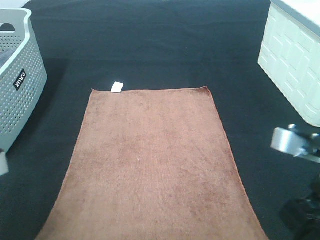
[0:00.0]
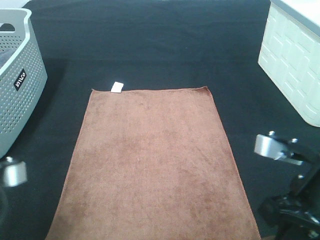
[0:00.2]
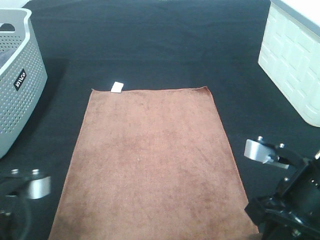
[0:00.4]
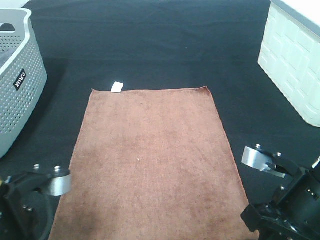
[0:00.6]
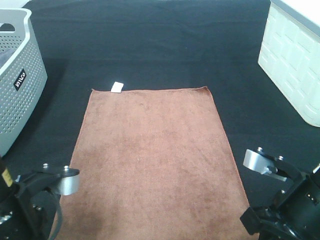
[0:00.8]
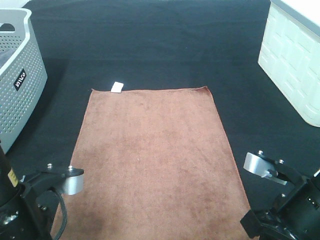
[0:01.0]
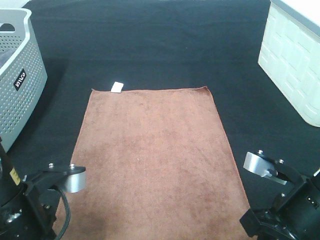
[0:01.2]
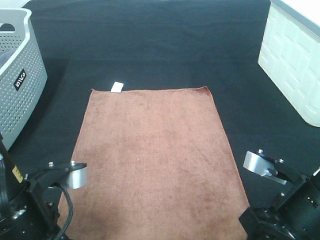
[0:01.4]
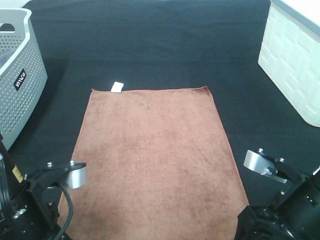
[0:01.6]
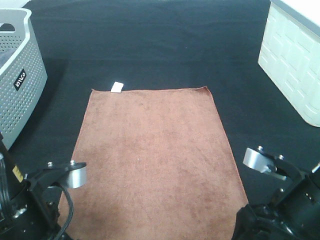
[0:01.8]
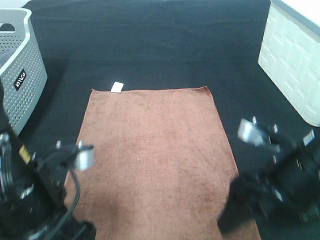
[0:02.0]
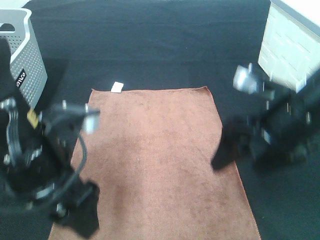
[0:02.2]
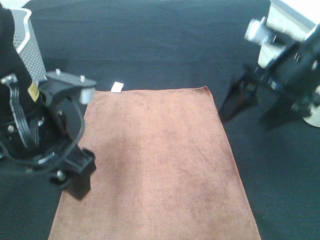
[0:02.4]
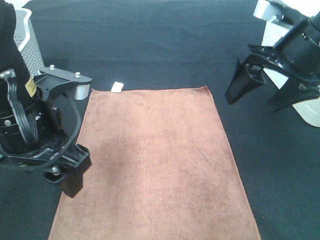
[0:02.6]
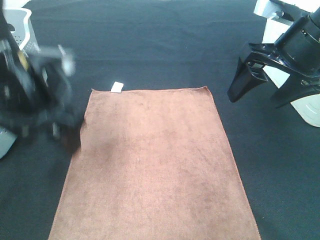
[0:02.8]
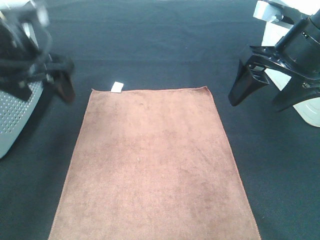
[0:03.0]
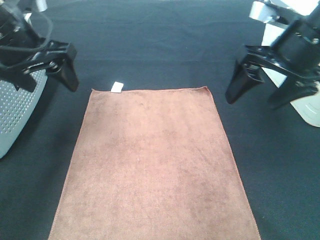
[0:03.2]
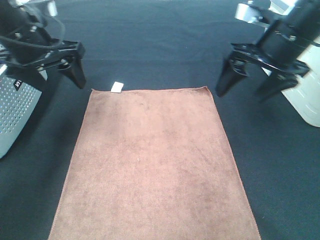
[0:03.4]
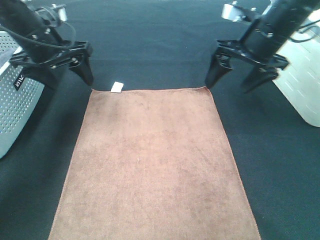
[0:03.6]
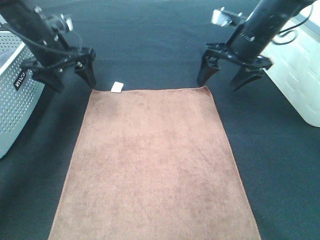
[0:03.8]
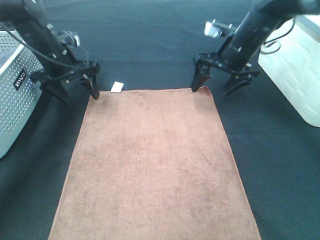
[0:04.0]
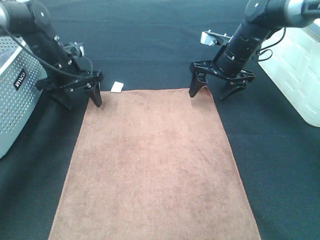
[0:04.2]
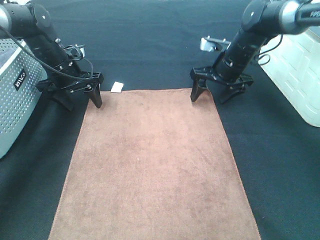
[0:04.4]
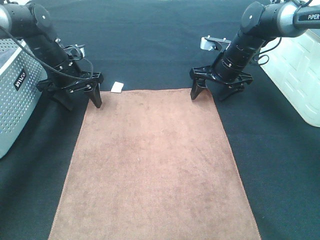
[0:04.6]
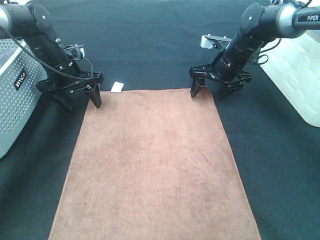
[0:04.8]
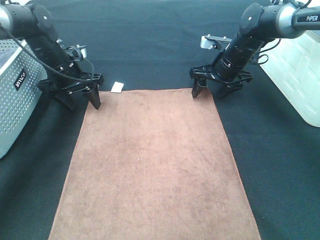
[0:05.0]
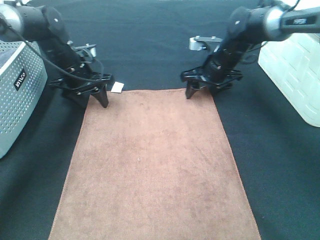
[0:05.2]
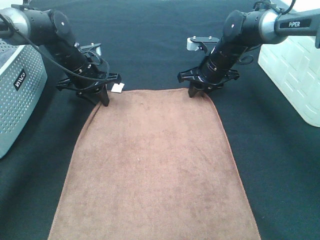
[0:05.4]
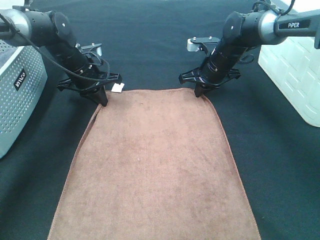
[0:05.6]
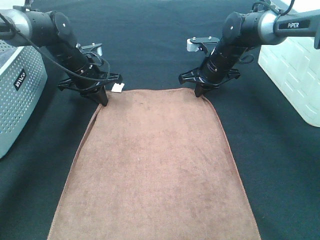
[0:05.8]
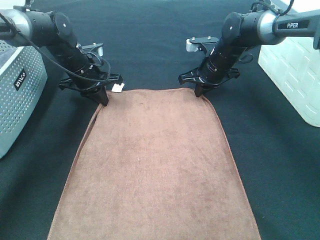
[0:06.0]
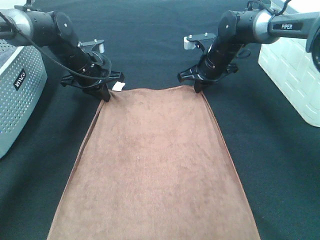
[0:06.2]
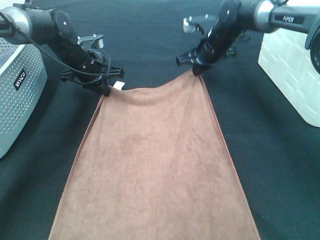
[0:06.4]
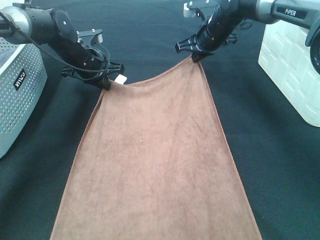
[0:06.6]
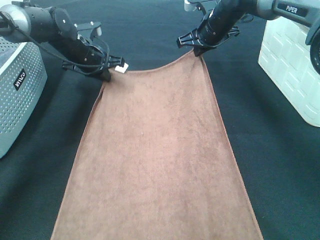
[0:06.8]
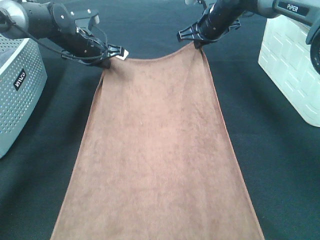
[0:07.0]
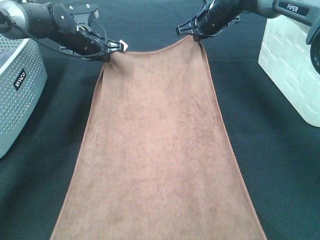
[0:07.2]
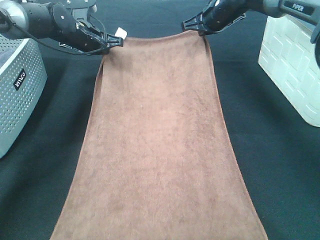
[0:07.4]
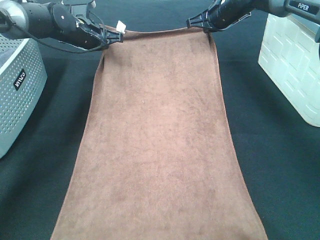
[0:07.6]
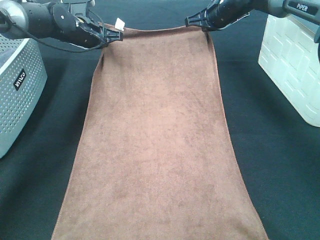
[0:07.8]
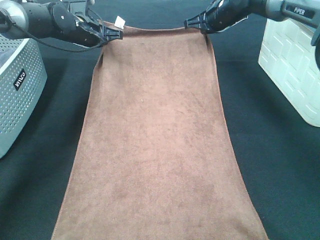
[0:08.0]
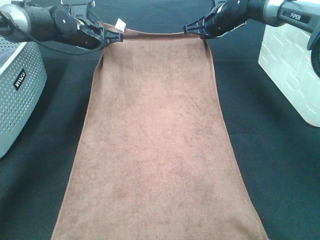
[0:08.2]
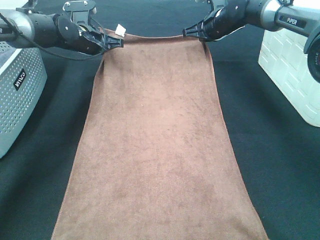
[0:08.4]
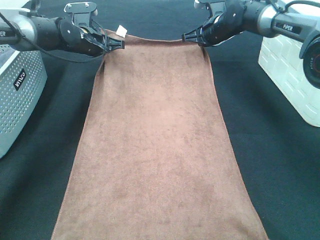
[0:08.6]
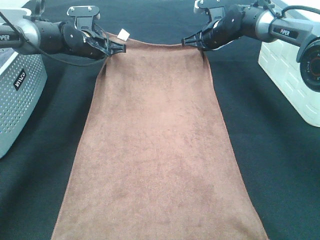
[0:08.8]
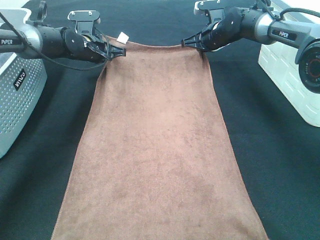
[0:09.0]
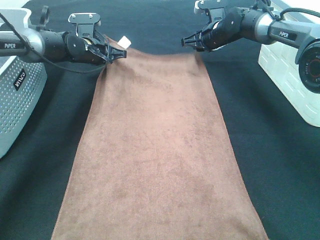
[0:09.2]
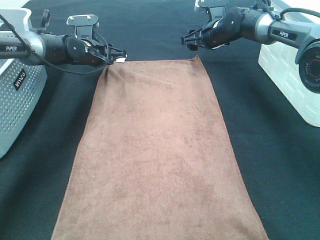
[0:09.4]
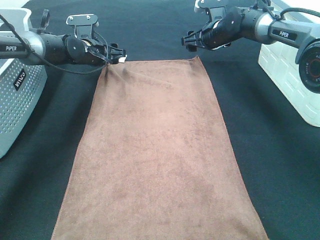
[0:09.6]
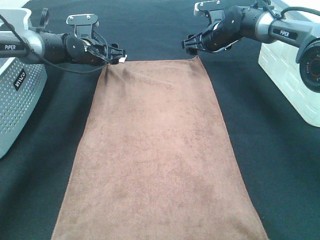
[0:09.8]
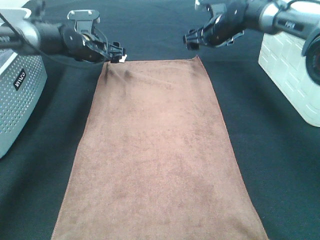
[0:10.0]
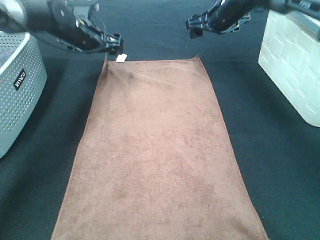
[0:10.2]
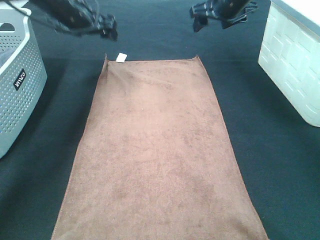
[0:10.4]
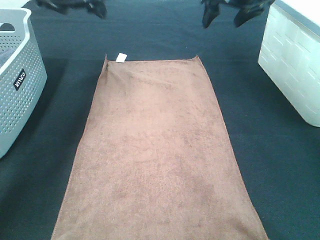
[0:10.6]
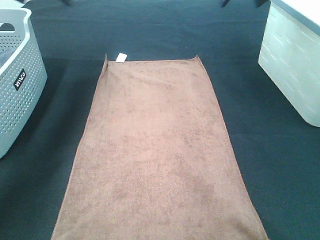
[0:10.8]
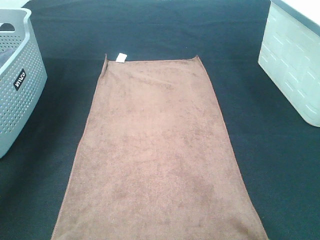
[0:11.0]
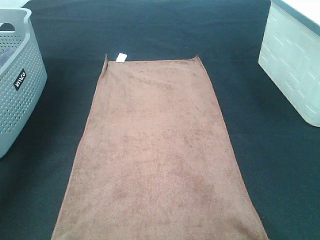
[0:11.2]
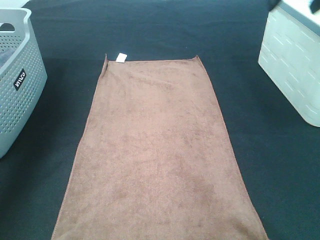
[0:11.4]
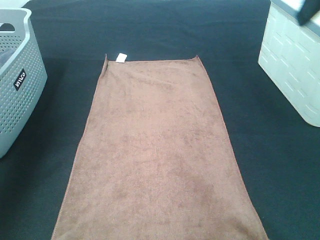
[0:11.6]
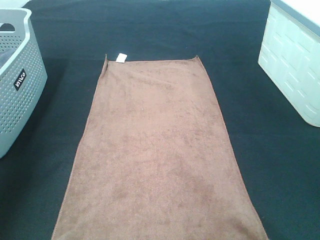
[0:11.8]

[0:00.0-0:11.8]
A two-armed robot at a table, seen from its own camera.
Task of the whole recording: Remove the towel and place it.
Step, 0:00.0 to 0:03.4: Left hand:adjust the brown towel.
Step, 0:00.0 to 0:03.4: Right hand:adjust the brown towel.
0:00.0 to 0:01.4: The right gripper is displaced downward by roughly 5 cm, and opens, while the left gripper moves to the right, roughly 5 cm, and opens.
0:01.4 to 0:03.0: Both grippers move forward and upward, some 20 cm. The right gripper opens up.
0:03.0 to 0:04.4: The two grippers go some 25 cm forward and downward.
0:04.4 to 0:06.0: The left gripper closes up. The right gripper closes up.
0:06.0 to 0:07.4: The left gripper shifts about 5 cm upward; the right gripper shifts some 10 cm upward and forward.
0:07.4 to 0:08.8: The right gripper heads downward, covering some 5 cm.
0:08.8 to 0:10.4: The two grippers go approximately 10 cm upward. The left gripper opens up, while the right gripper opens its fingers.
0:10.4 to 0:11.8: The left gripper heads backward and to the left, covering roughly 35 cm; the right gripper moves backward, some 35 cm.

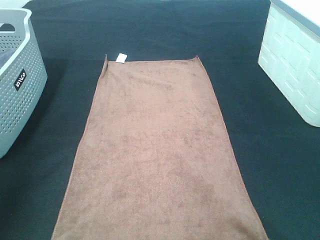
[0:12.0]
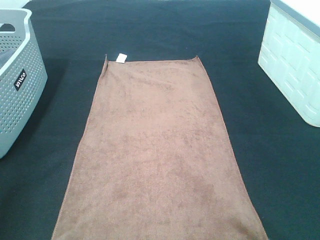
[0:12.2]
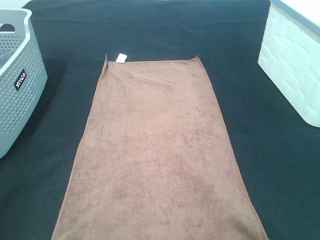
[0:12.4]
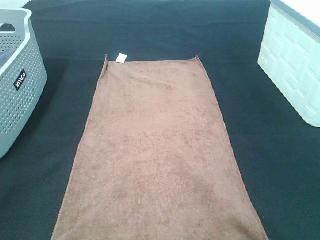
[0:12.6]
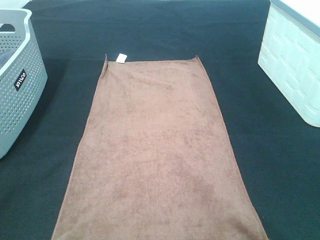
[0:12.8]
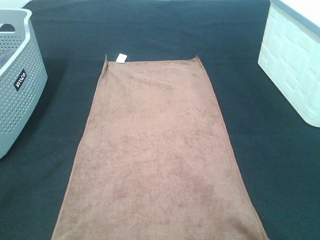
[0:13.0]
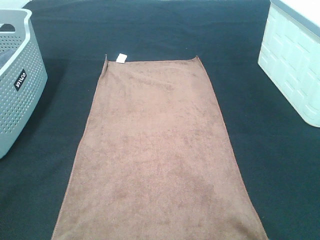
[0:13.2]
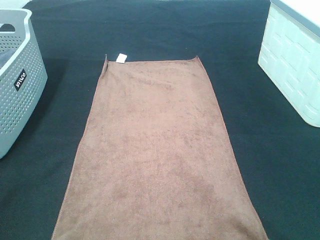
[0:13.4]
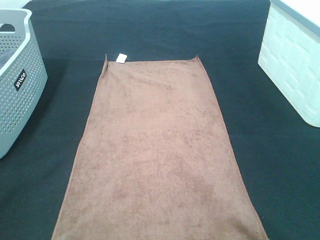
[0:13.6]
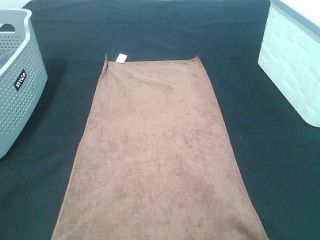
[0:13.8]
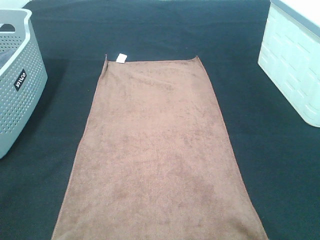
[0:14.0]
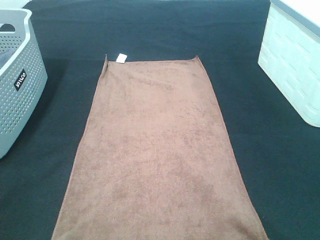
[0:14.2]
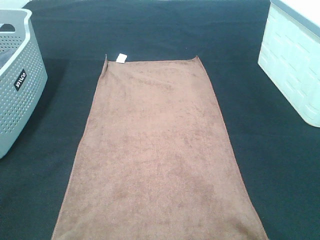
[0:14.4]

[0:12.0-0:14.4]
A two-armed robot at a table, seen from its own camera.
Task of the whole recording: Remove the towel and place it.
0:13.2 to 0:14.4: Both grippers stay put.

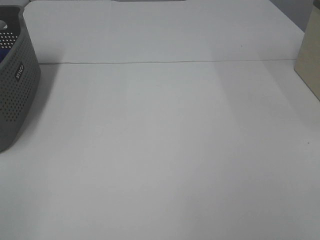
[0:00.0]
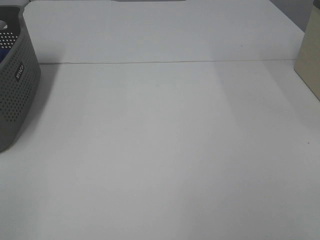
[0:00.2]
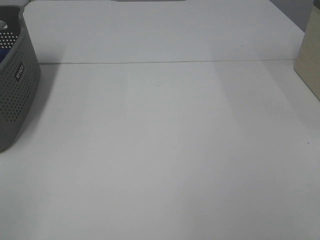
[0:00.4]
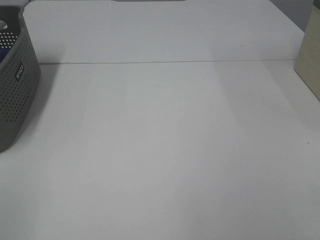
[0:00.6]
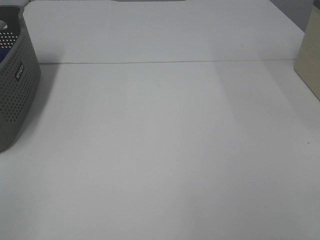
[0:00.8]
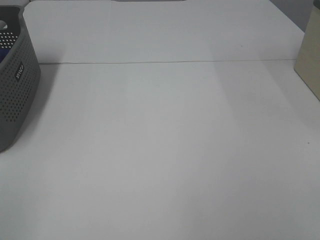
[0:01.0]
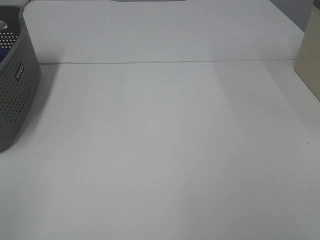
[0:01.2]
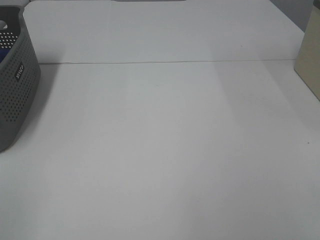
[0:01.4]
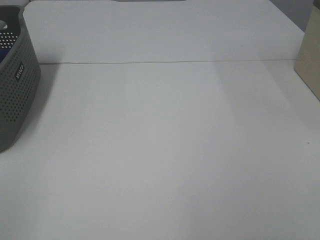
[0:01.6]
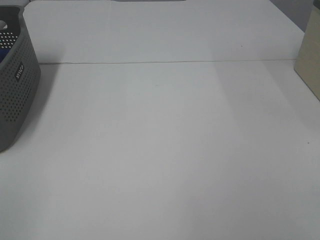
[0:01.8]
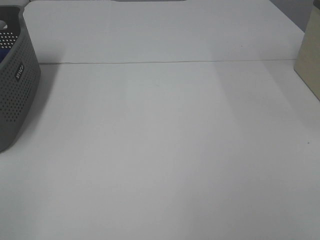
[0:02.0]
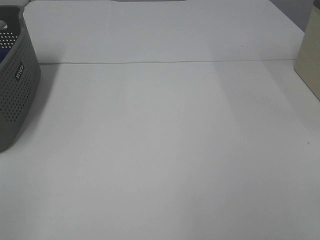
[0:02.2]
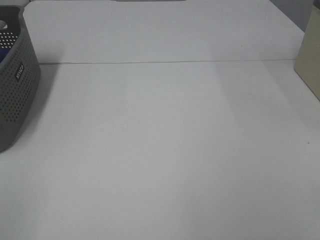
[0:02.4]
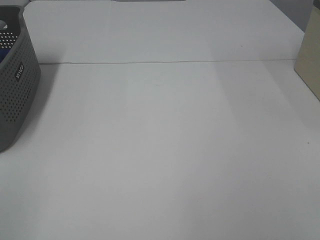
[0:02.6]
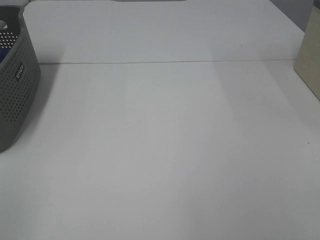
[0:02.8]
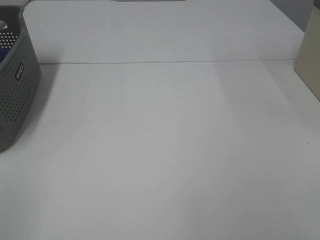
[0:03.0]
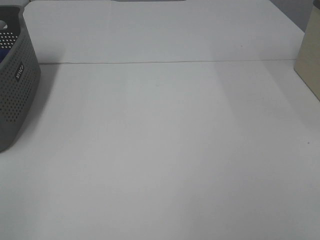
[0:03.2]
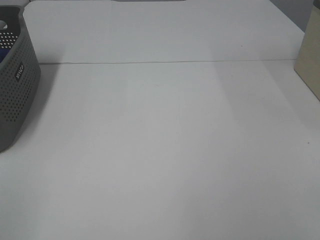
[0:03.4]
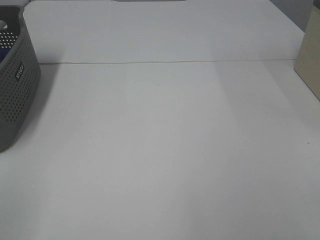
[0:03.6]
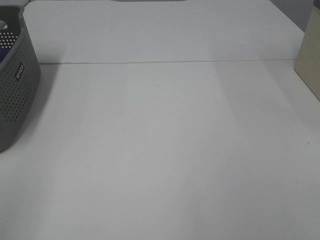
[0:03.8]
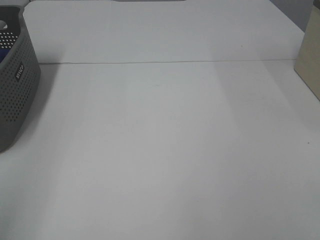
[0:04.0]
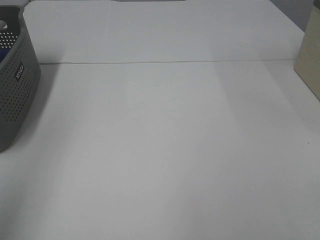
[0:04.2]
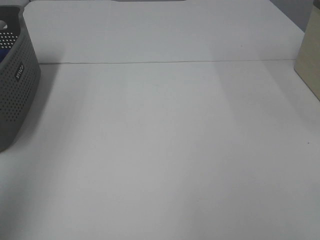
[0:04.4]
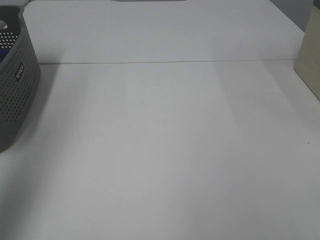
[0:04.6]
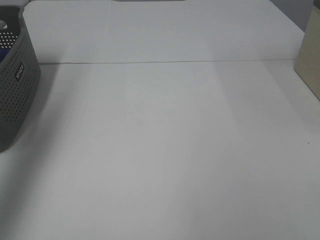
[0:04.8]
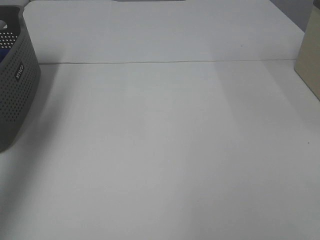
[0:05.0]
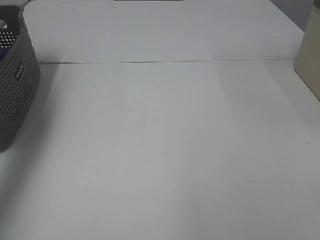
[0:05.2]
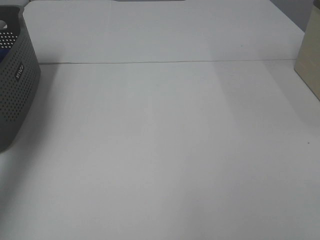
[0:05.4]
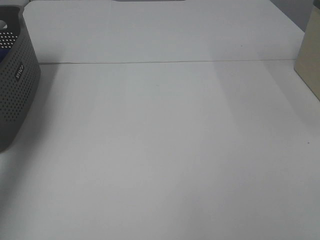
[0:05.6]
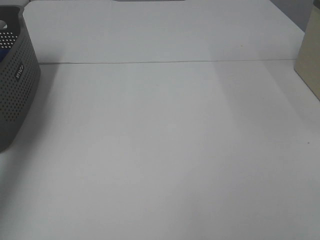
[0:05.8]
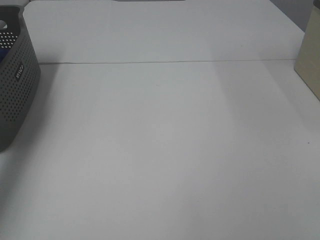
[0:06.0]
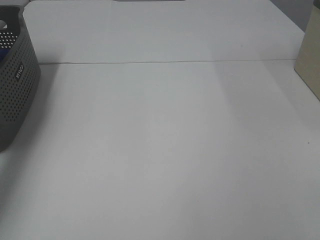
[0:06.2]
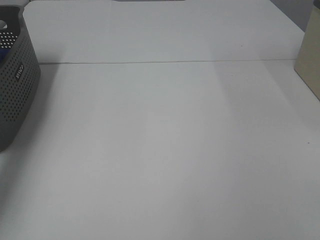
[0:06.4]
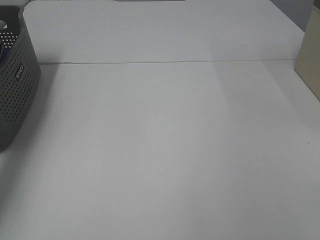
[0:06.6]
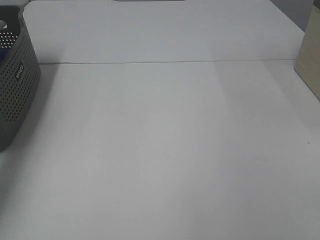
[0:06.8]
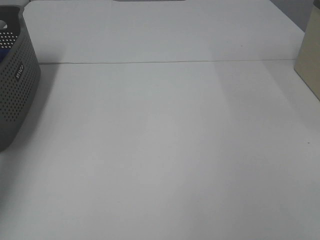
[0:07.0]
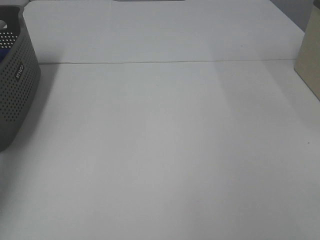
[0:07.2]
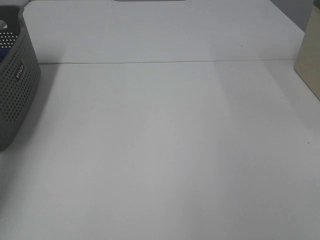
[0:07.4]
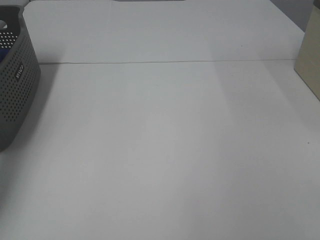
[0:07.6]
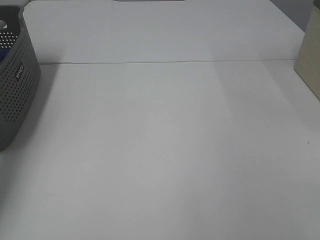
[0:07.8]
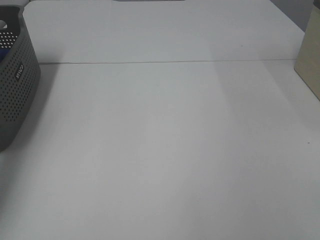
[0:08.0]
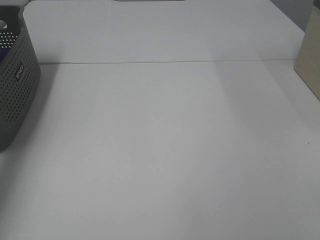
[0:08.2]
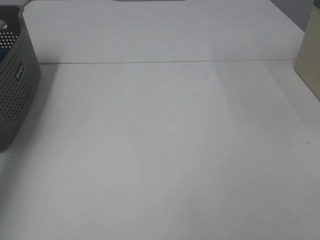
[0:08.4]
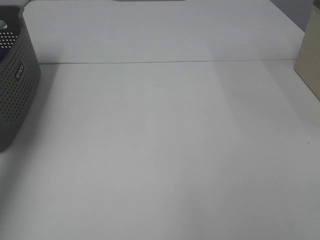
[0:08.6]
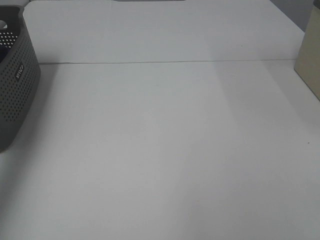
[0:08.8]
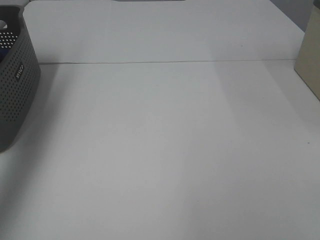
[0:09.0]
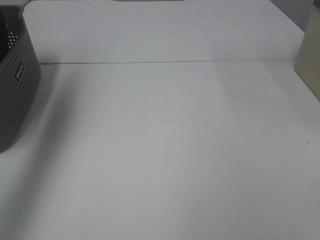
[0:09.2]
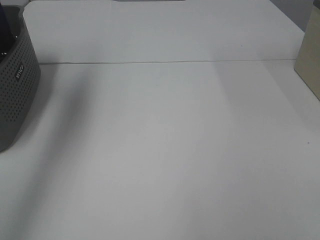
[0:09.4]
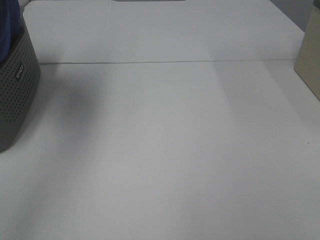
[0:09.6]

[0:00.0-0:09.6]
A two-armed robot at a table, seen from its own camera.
Task of the whole recording: Remove the towel and place it.
0:00.0 to 0:03.2: The two grippers keep their place.
0:03.2 to 0:04.8: The left gripper is displaced forward and upward by some 35 cm.
0:04.8 to 0:06.4: The left gripper heads downward and forward, covering some 30 cm.
0:08.0 to 0:09.6: The left gripper is displaced upward, to the right and backward by roughly 35 cm.
